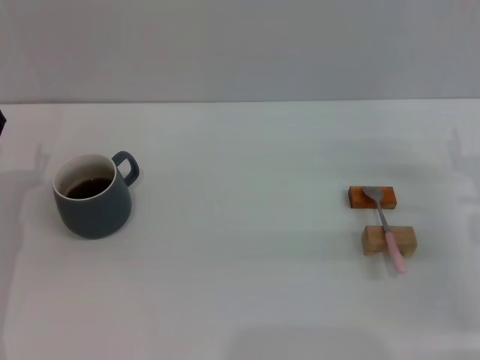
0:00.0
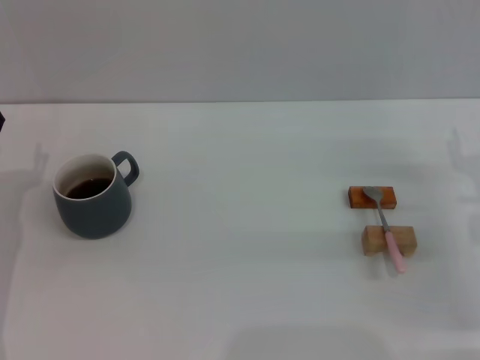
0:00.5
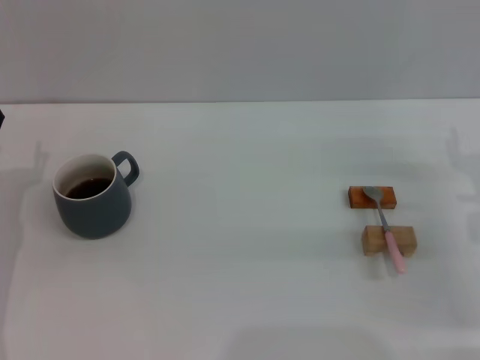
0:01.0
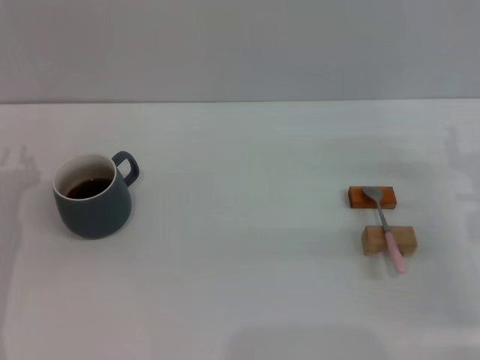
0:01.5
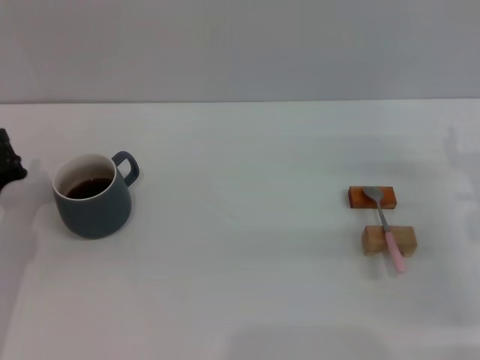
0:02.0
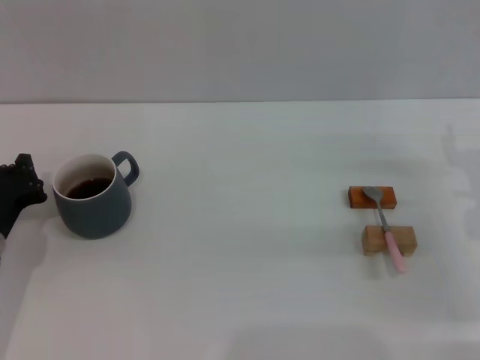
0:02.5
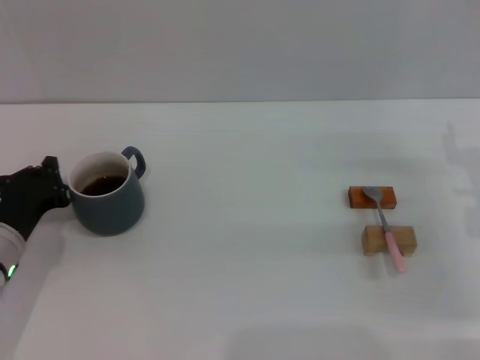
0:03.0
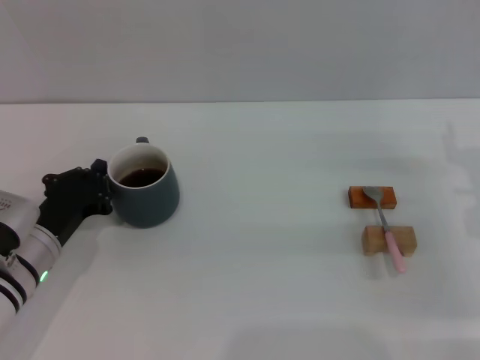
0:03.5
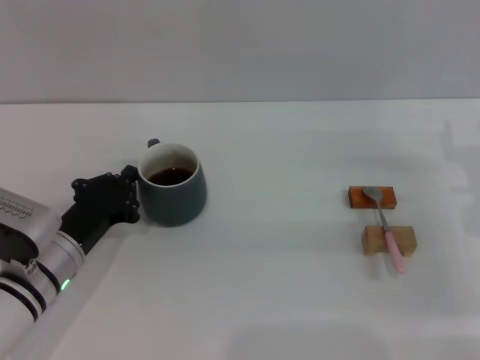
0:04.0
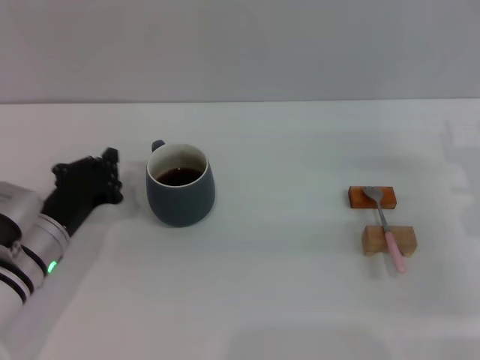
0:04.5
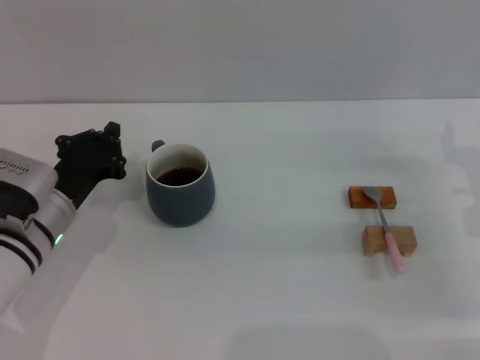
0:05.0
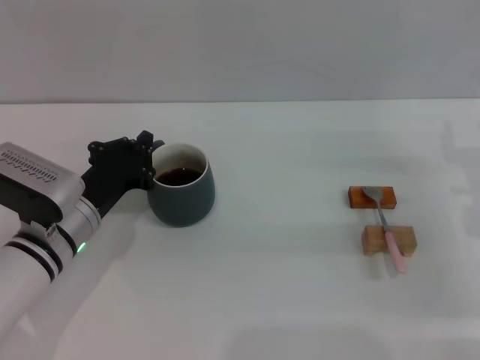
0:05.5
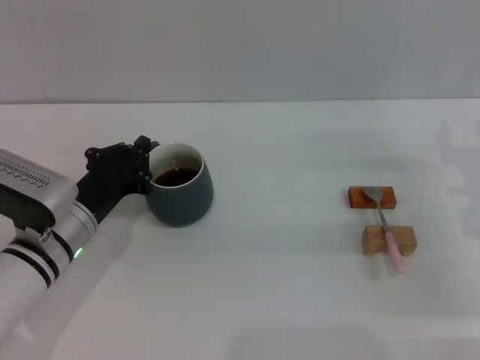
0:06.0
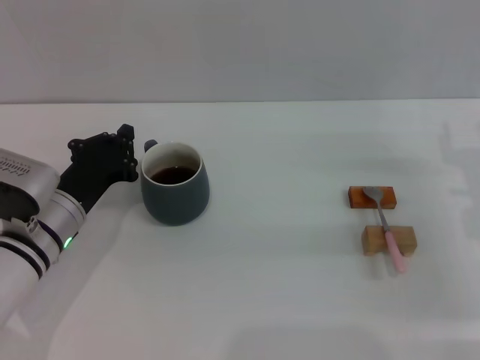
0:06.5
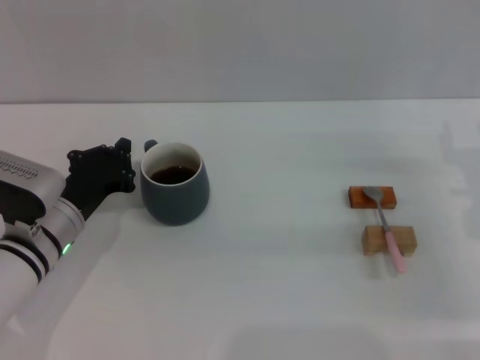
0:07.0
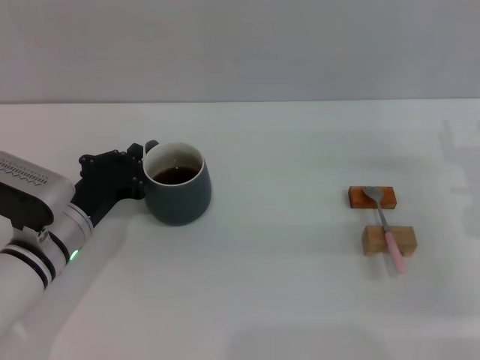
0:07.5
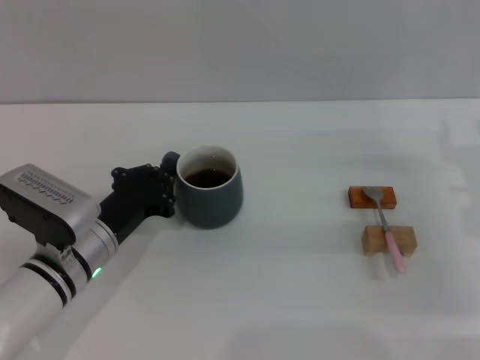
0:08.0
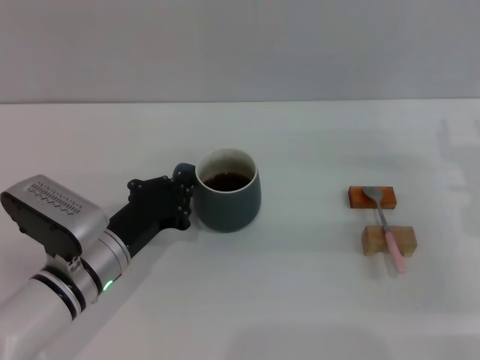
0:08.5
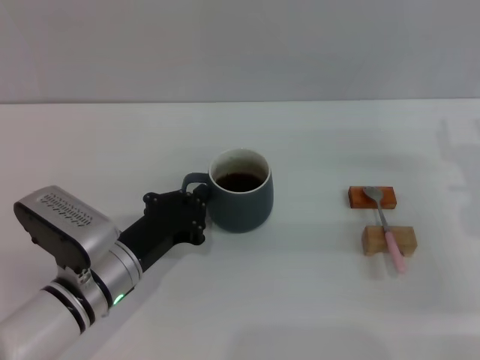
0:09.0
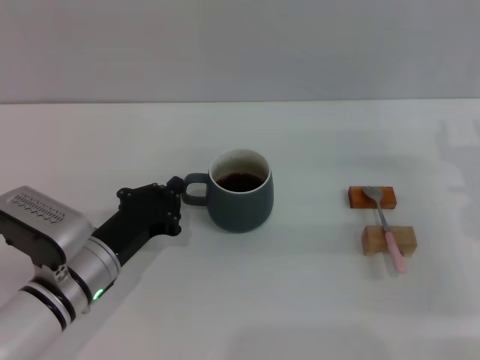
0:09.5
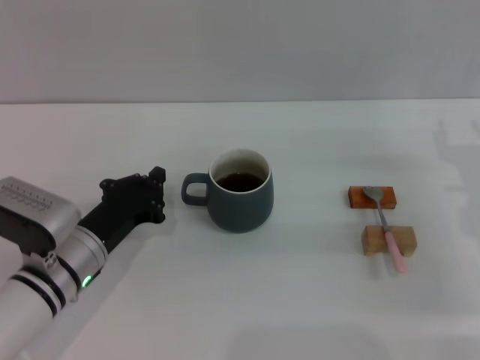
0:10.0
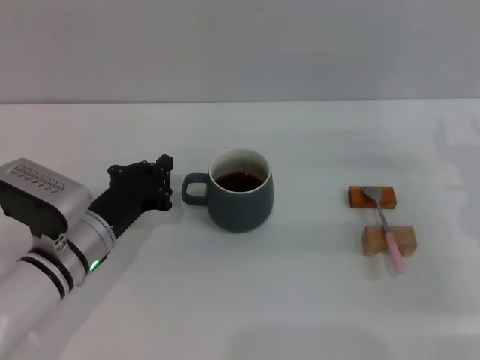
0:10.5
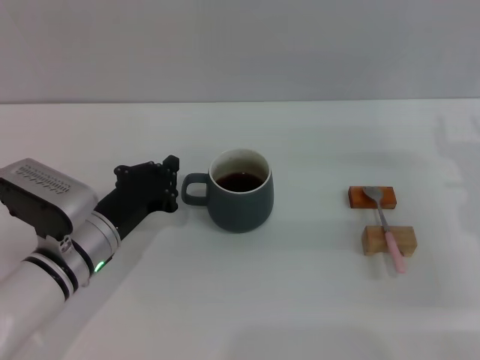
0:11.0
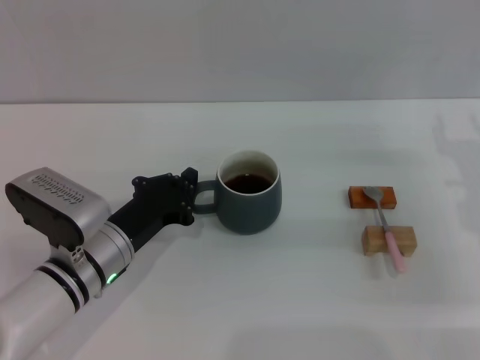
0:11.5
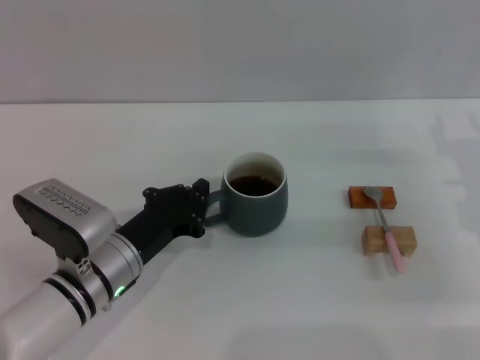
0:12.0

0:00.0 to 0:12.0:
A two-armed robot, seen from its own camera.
Task of the whole recording: Move the grey cup to the center, lift the pink spoon, stir it three times in the cup, and put the spoon into the cup.
Step, 0:00.0 to 0:10.0: Move the cup with coffee to the center of view with the left gripper.
0:02.0 to 0:04.0: The left gripper moves to the right, roughly 10 cm.
0:04.0 to 0:12.0: The grippers move only a little.

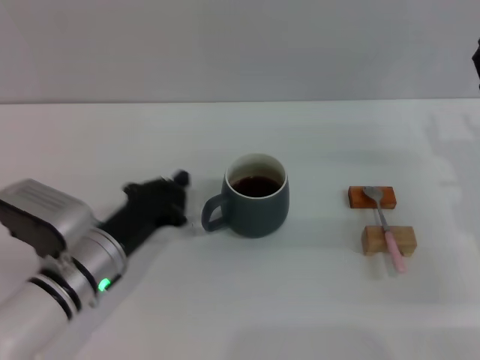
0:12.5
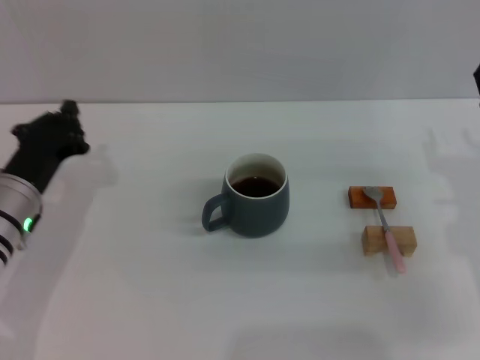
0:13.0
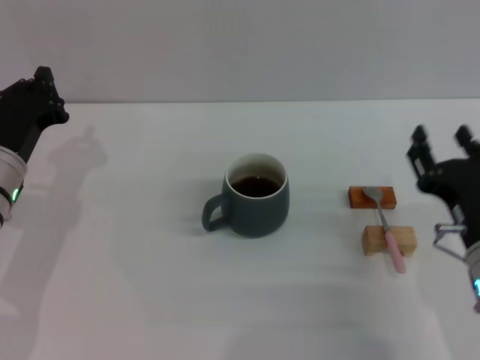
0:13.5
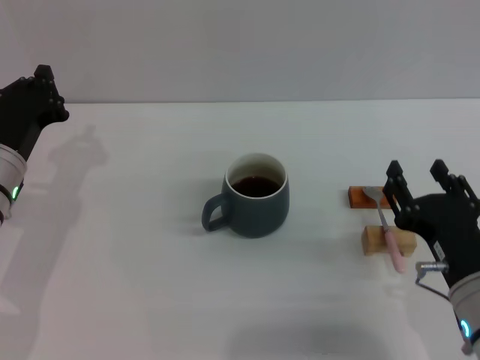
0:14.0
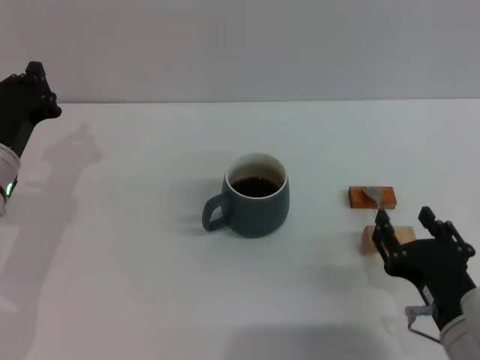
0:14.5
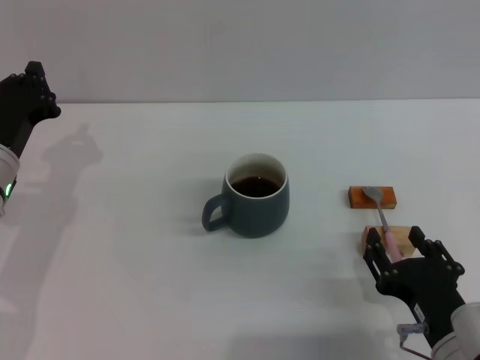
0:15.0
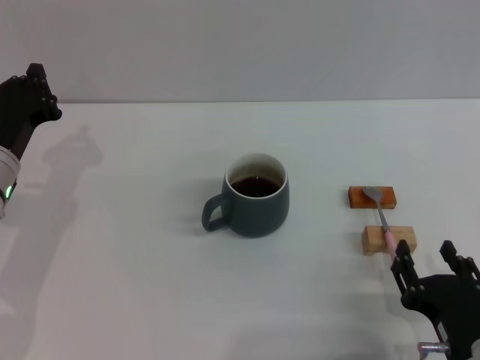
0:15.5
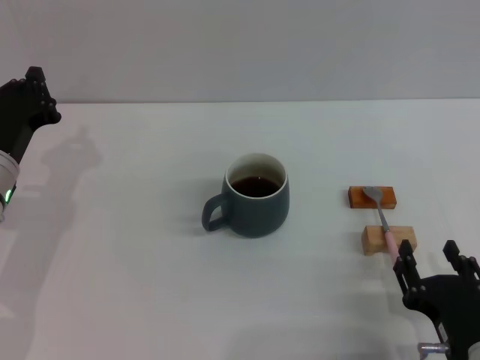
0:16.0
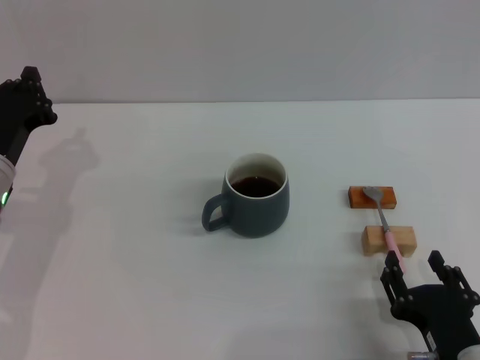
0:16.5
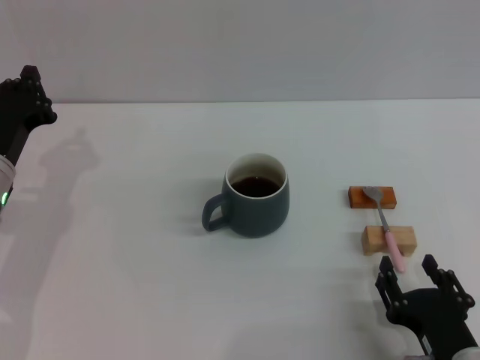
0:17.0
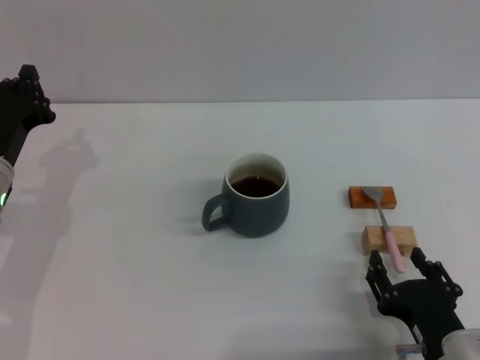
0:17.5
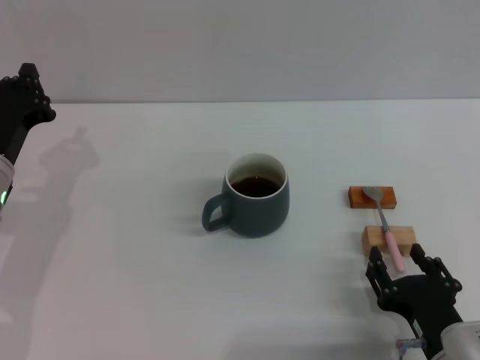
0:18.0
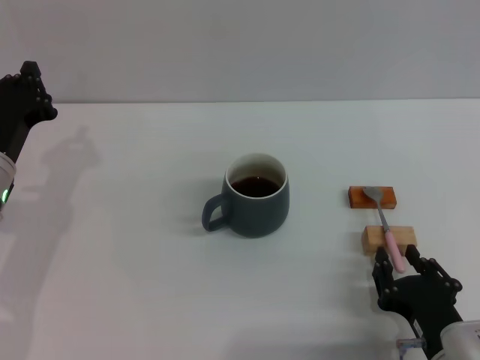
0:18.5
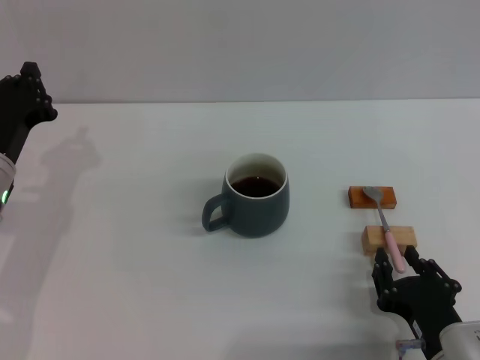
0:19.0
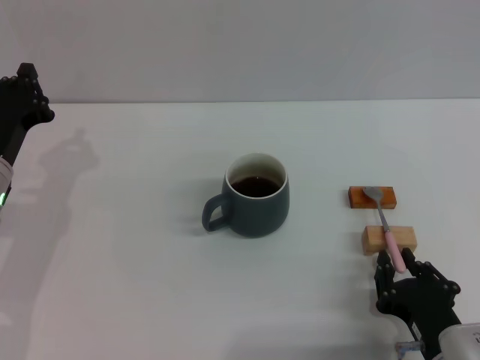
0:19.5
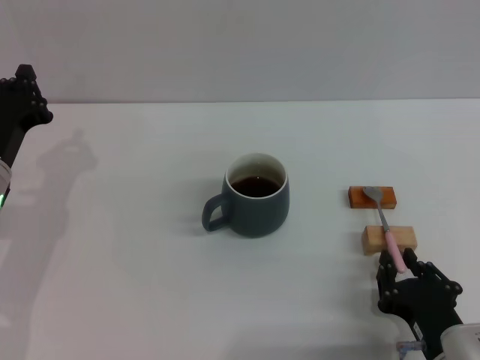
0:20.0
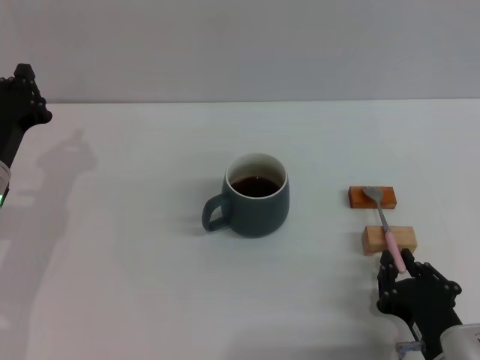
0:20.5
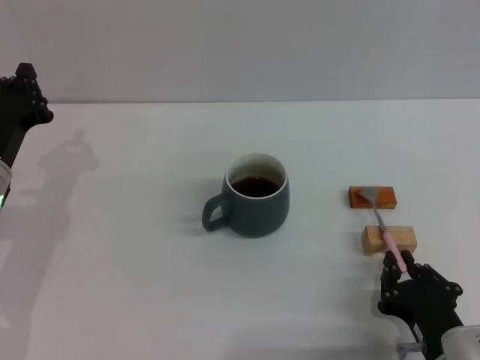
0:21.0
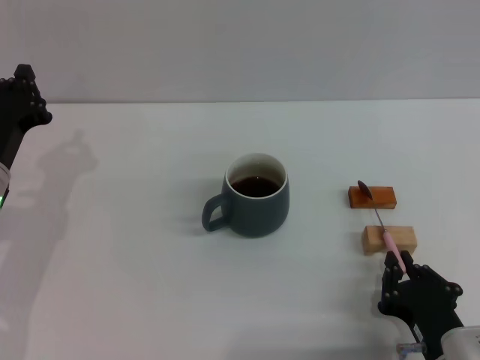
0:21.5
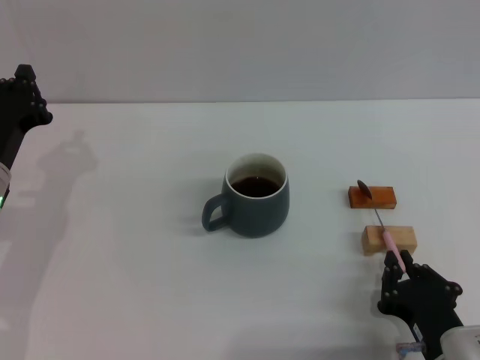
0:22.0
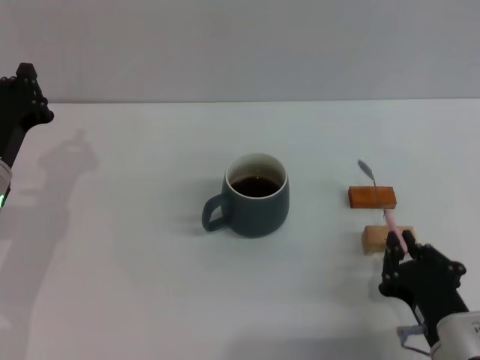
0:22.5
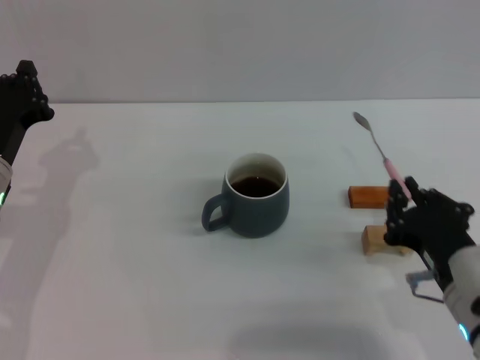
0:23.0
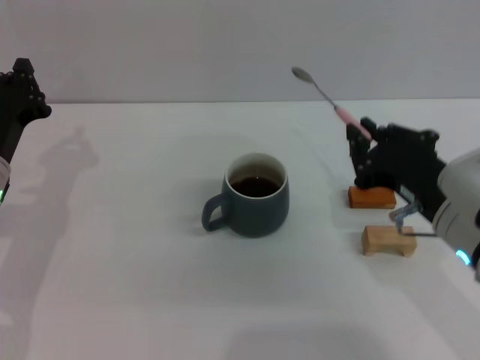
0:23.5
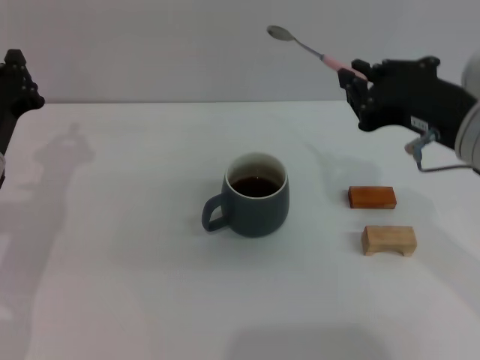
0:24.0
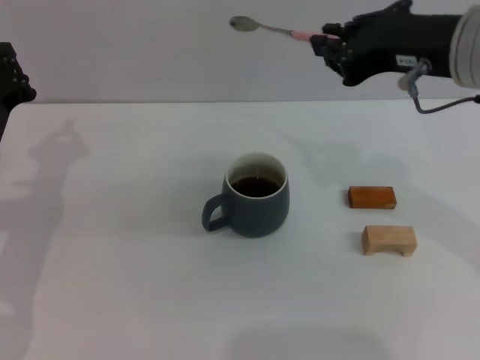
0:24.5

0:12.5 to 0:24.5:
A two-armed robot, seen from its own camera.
Task of the whole recording: Move the grey cup to the center, lift the pink spoon, stir it three times in the cup, and put the spoon into the cup.
Step, 0:12.5 to 0:22.5: Pick up the spoon with the right gripper.
0:12.5 to 0:14.5: The left gripper goes roughly 10 cm to the left, forward and upward, while the right gripper is displaced backward and to the left by about 20 cm.
0:14.5 to 0:18.5: There are only small adjustments of the grippers.
0:18.5 to 0:20.5: The right gripper closes its fingers.
0:20.5 to 0:22.5: The grippers make only small movements.
0:22.5 to 0:24.5: The right gripper heads upward and forward, covering some 30 cm.

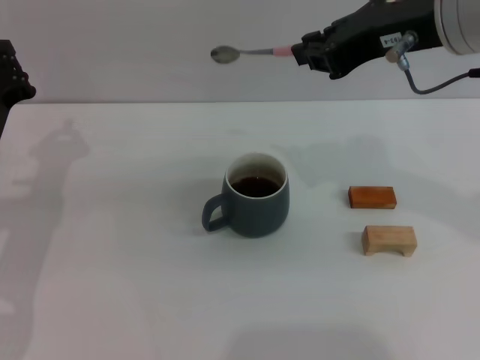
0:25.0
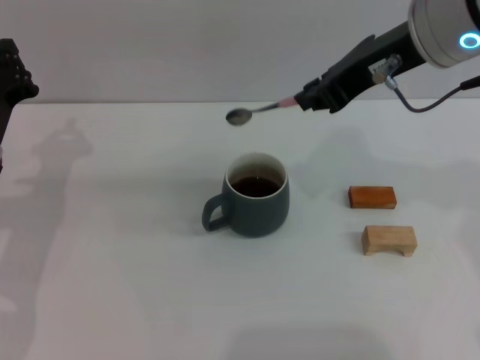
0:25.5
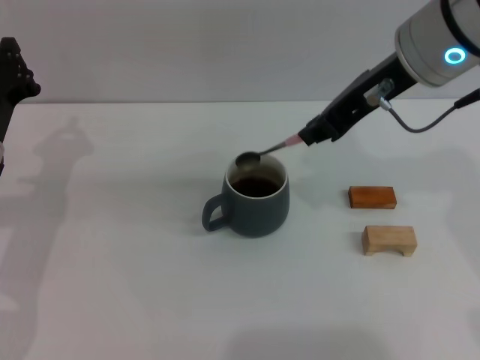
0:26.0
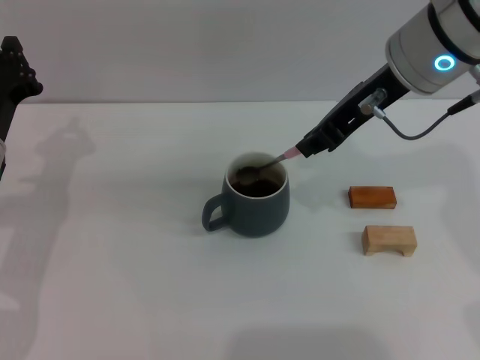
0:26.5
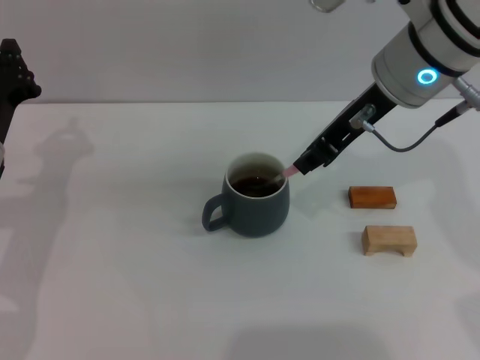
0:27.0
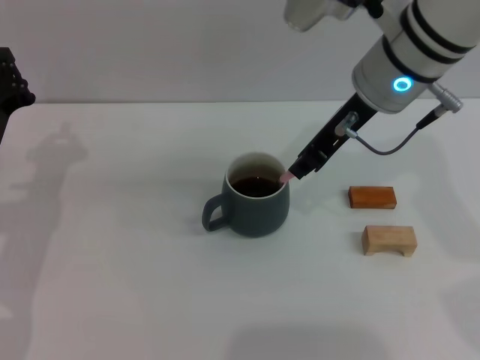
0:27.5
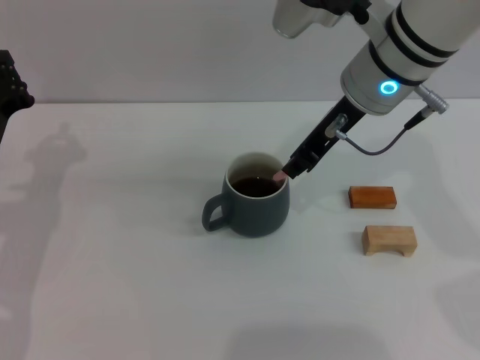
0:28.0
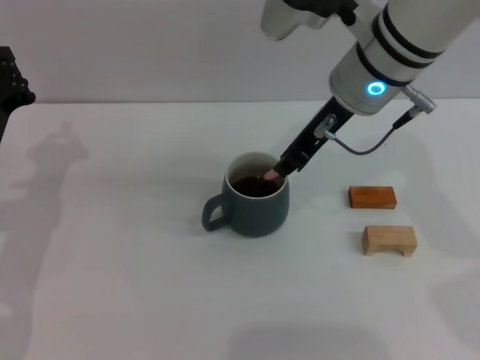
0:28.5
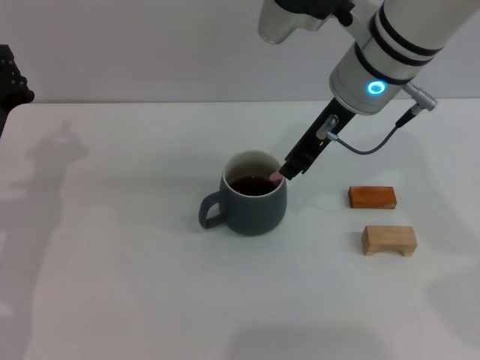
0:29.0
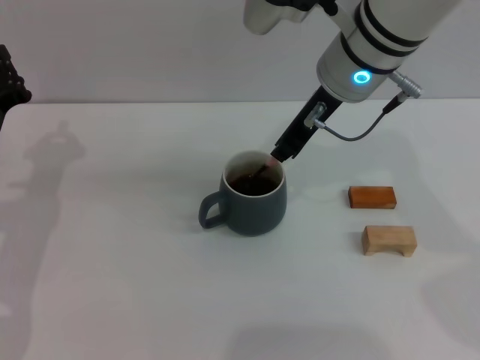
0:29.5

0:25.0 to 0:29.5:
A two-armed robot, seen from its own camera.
Task of the whole recording: Move the grey cup to the center, lift the pink spoon, stir it three times in the cup, and put the spoon into the cup.
0:25.0 to 0:27.0: The right gripper is displaced downward by some 5 cm.
0:27.0 to 0:29.5: The right gripper shifts by some 5 cm.
